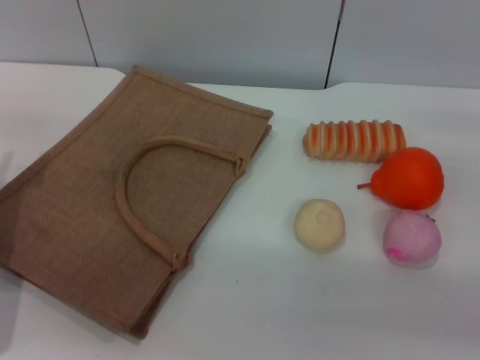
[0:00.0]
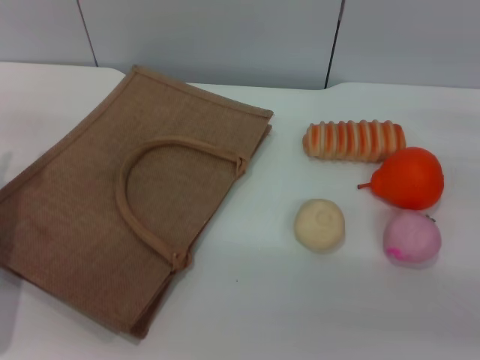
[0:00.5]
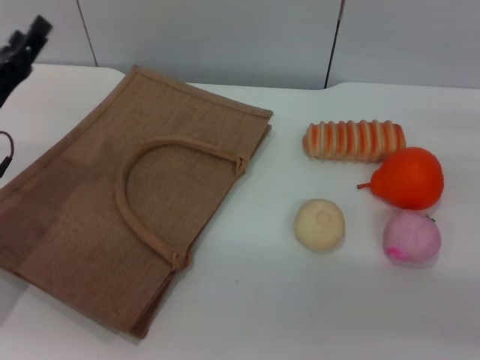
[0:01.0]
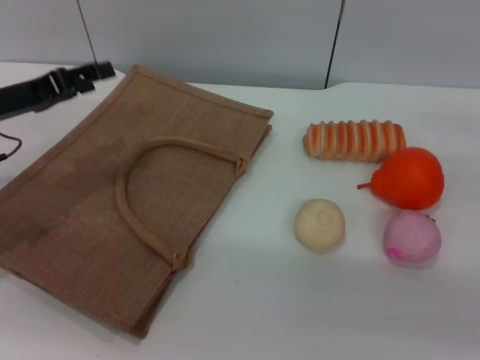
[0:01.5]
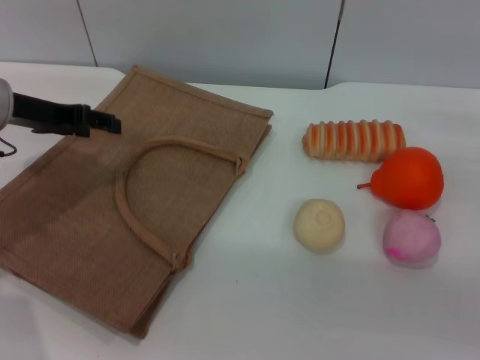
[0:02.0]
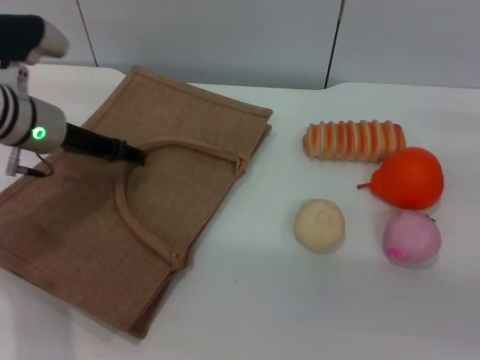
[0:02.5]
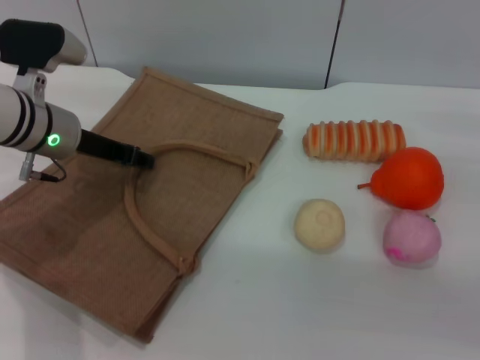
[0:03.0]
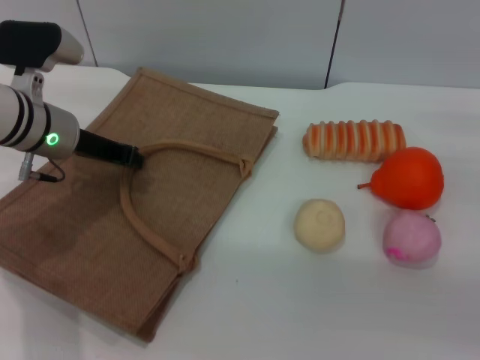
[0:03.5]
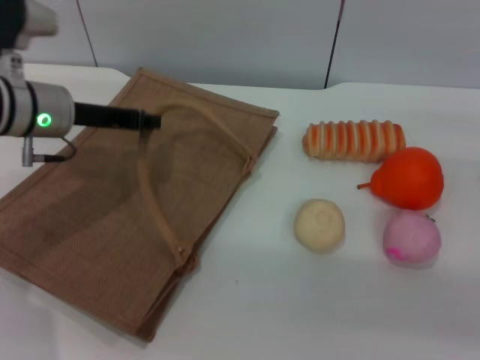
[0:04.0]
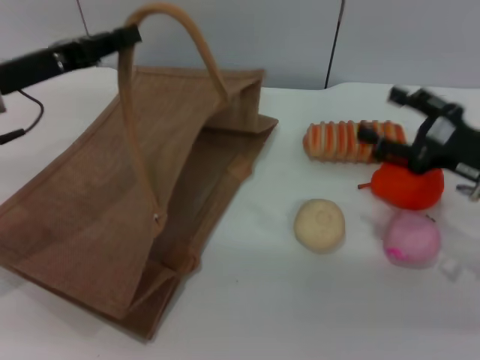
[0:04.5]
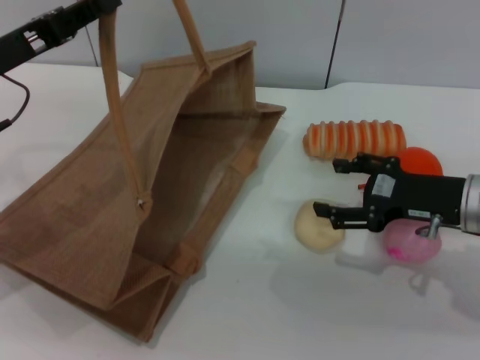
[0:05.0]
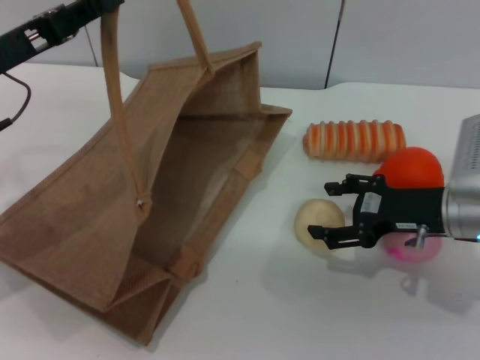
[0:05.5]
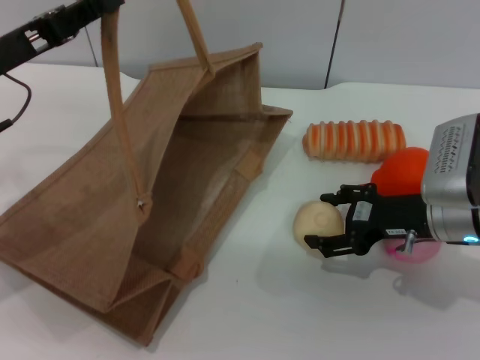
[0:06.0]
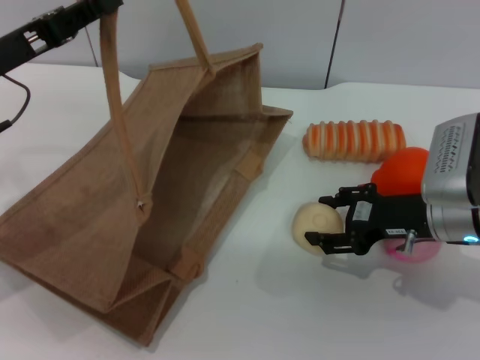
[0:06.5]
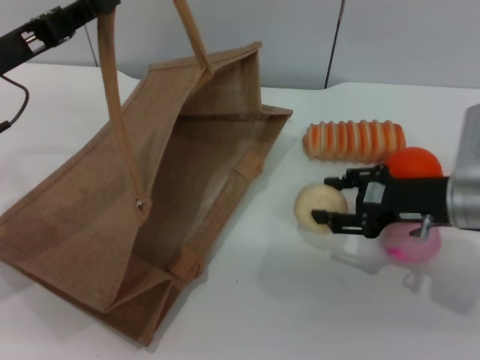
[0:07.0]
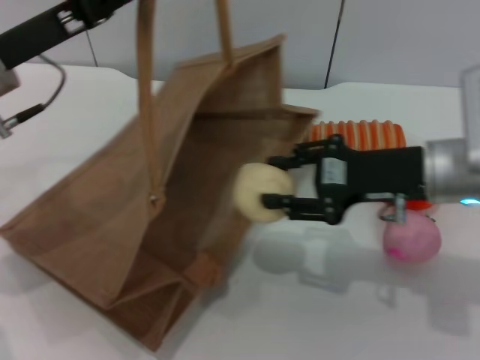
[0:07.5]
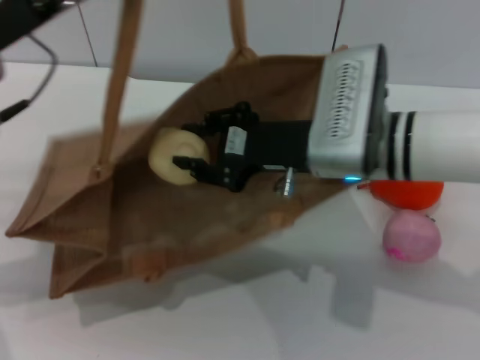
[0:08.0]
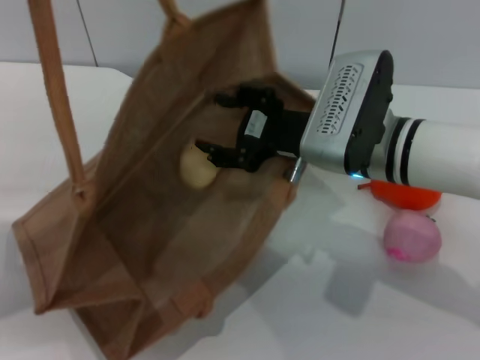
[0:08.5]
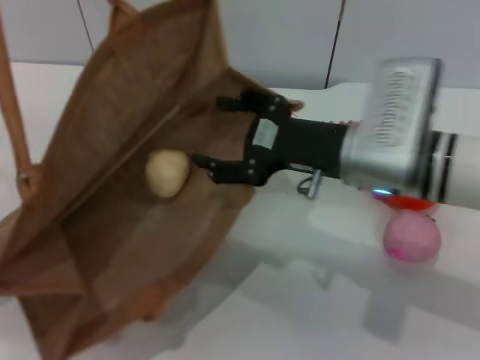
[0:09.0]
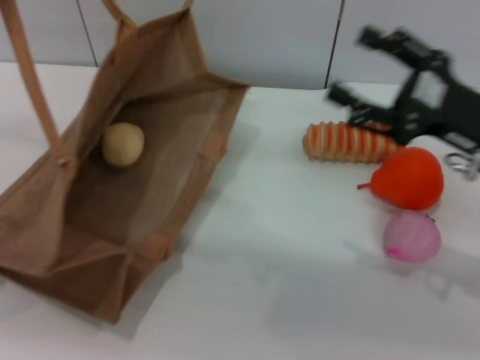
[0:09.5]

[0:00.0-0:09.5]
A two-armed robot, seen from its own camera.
Task of the whole recording: pick up the egg yolk pastry from the table and place it in the brown handbag.
Step, 0:00.0 to 0:04.0: Lift the woven bag with the left gripper to open it.
Step, 0:04.5 to 0:07.0: Pick up the egg yolk pastry with the right gripper.
Step, 0:07.5 to 0:09.0: Place the egg yolk pastry into the woven bag with the right gripper.
0:00.0 to 0:02.0: The left gripper goes roughly 15 cm forward and upward.
0:02.0 to 0:04.0: The left gripper is displaced to the right by approximately 5 cm, and closes up.
0:04.0 to 0:05.5: The left gripper moves backward, roughly 5 cm. The right gripper heads to the left, covering about 10 cm.
0:05.5 to 0:07.5: The right gripper shifts some 5 cm upward, and closes up.
0:07.5 to 0:09.5: The right gripper is displaced to the right by some 5 cm, and opens. The left gripper goes approximately 10 cm to the left.

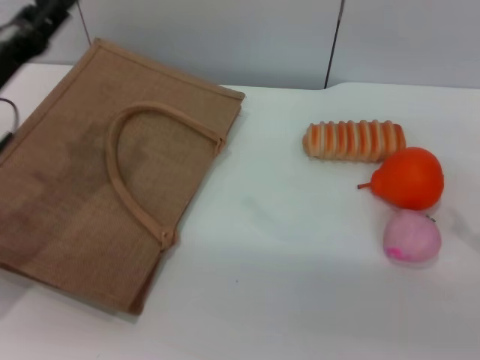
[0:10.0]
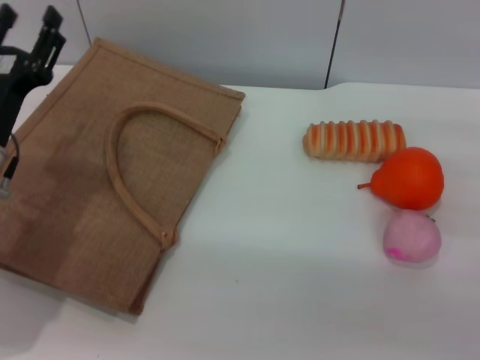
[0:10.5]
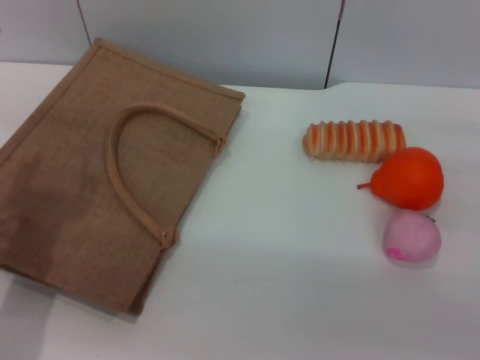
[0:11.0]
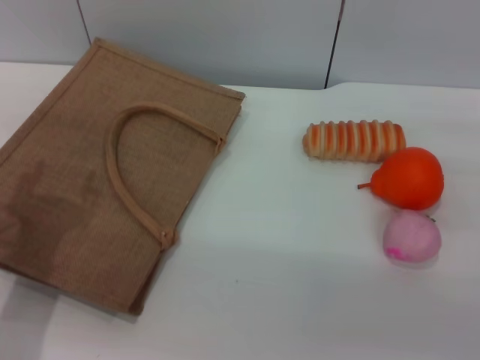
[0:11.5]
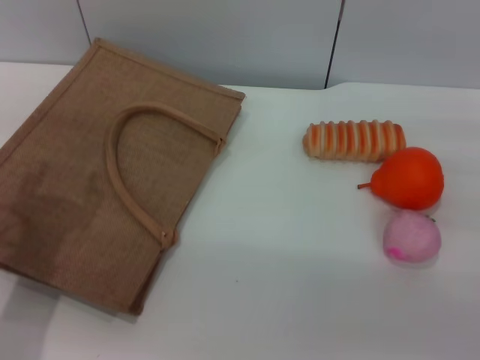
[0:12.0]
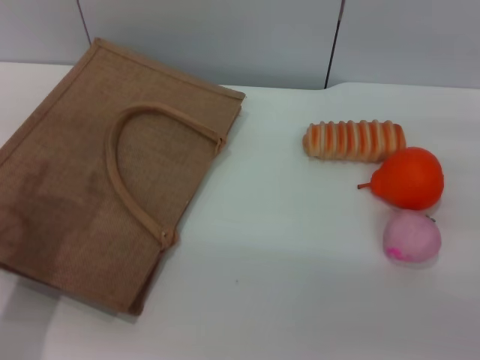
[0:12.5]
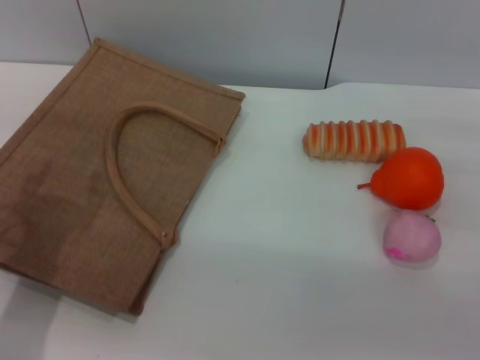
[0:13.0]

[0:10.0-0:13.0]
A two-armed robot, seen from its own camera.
Task of the whole recording: pick up the egg yolk pastry from the table and place it in the brown handbag.
0:10.0 to 0:11.5: The left gripper is displaced backward by roughly 5 cm, and opens up.
0:11.5 to 0:13.0: Both grippers stay put.
